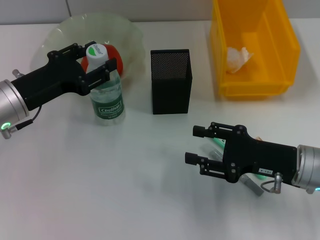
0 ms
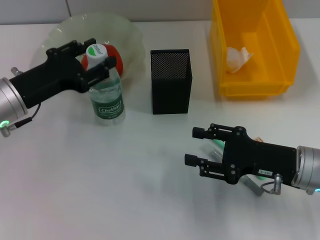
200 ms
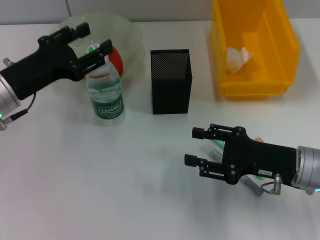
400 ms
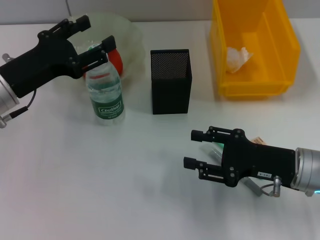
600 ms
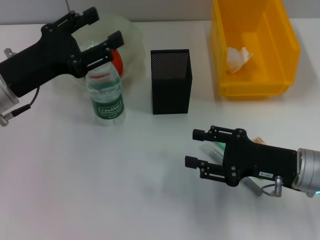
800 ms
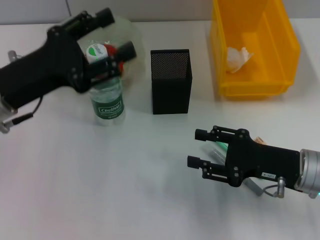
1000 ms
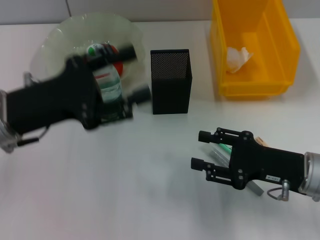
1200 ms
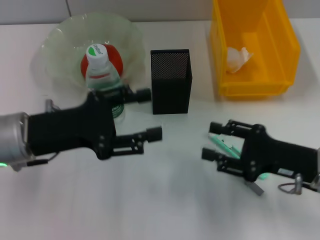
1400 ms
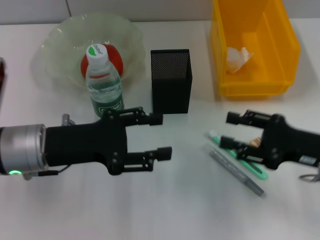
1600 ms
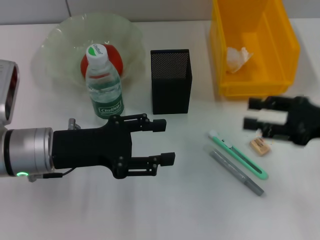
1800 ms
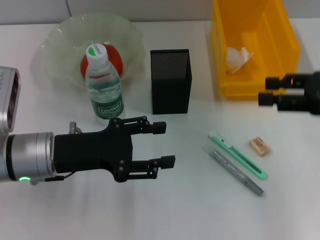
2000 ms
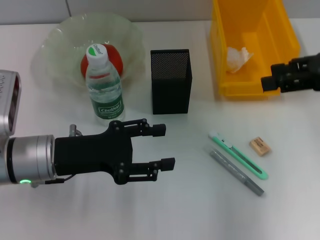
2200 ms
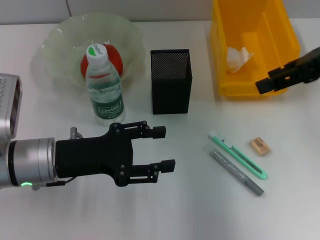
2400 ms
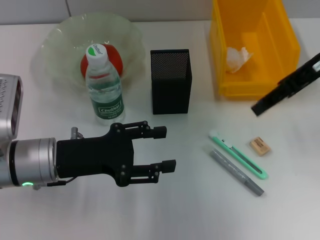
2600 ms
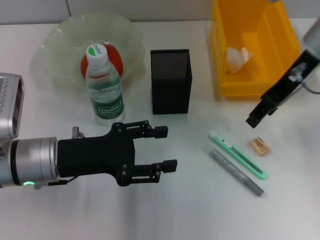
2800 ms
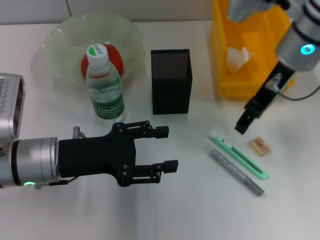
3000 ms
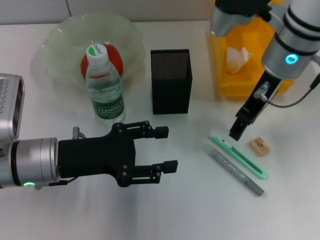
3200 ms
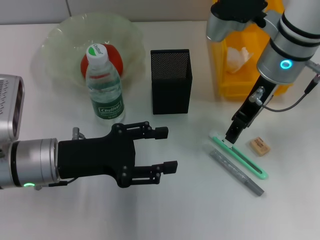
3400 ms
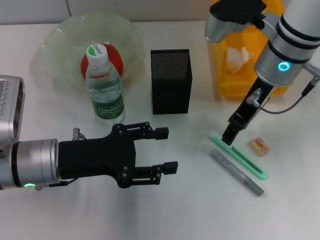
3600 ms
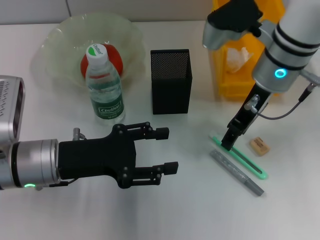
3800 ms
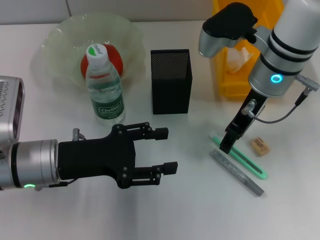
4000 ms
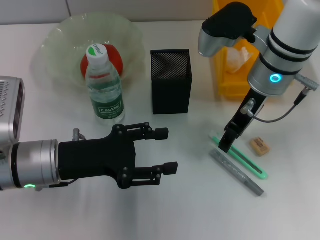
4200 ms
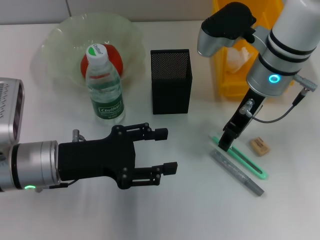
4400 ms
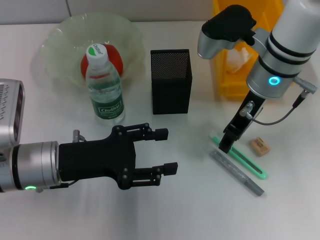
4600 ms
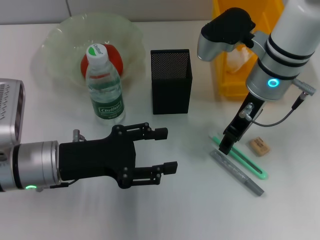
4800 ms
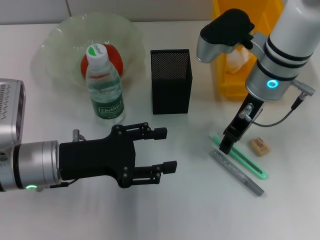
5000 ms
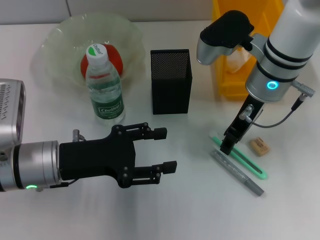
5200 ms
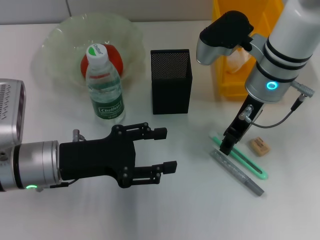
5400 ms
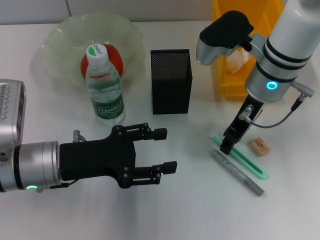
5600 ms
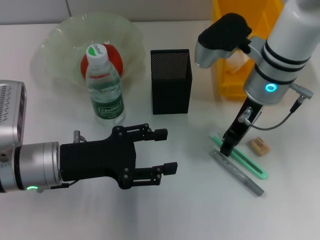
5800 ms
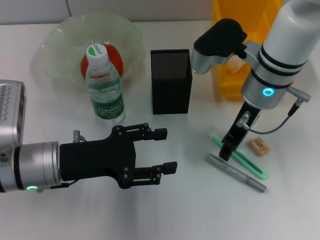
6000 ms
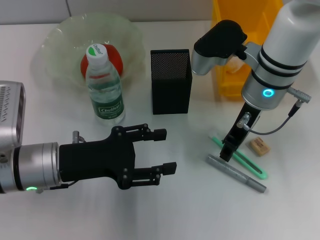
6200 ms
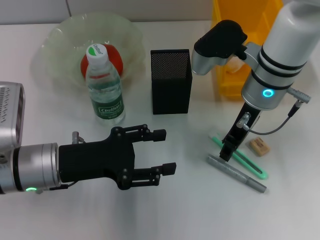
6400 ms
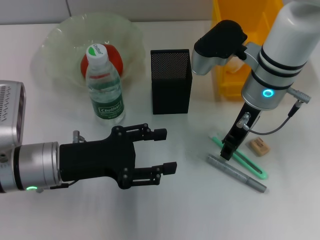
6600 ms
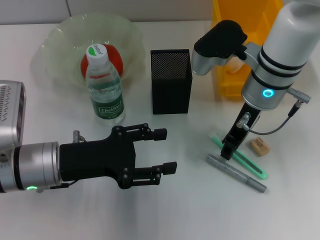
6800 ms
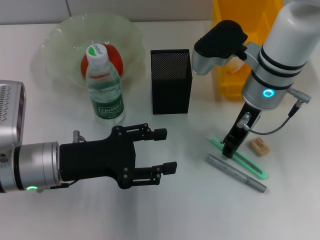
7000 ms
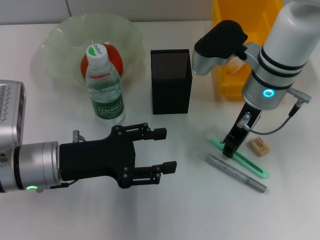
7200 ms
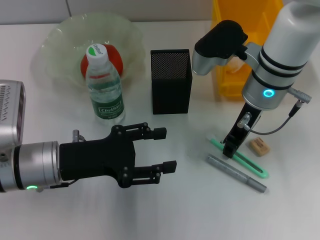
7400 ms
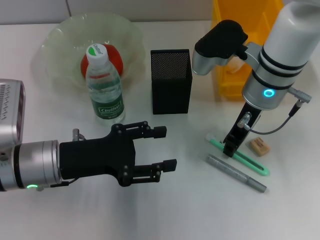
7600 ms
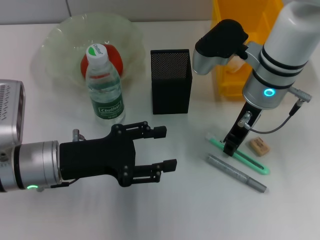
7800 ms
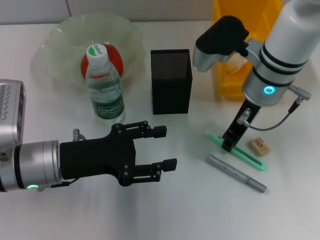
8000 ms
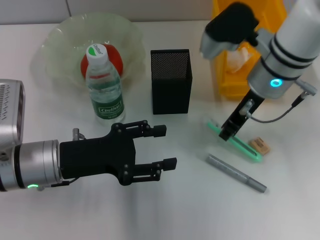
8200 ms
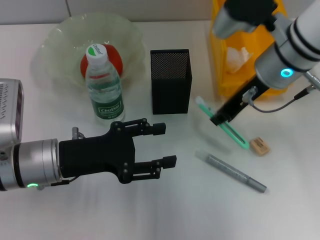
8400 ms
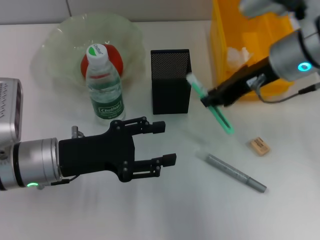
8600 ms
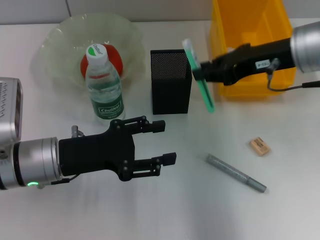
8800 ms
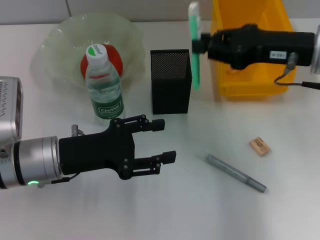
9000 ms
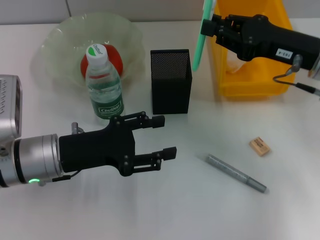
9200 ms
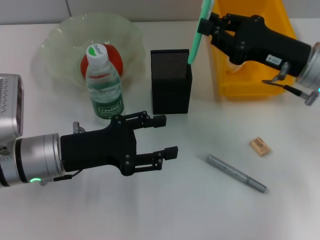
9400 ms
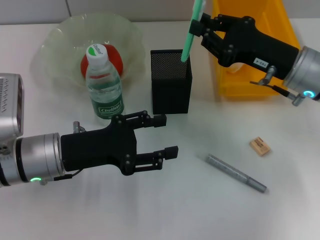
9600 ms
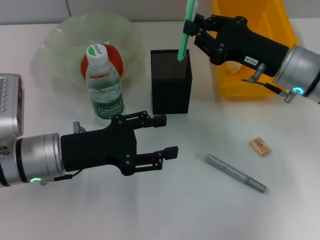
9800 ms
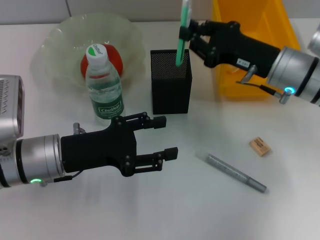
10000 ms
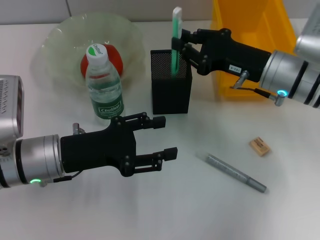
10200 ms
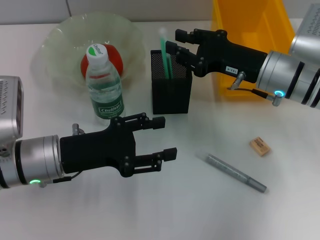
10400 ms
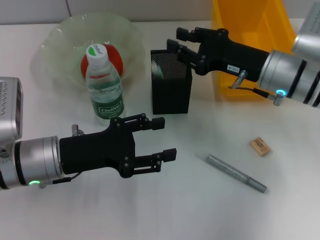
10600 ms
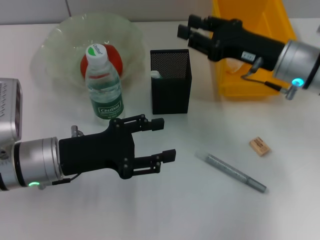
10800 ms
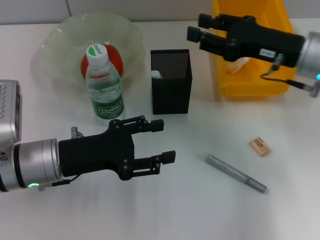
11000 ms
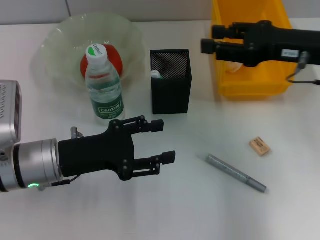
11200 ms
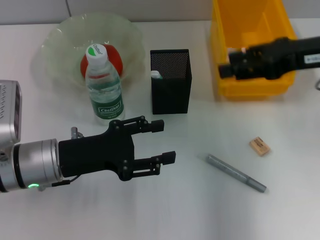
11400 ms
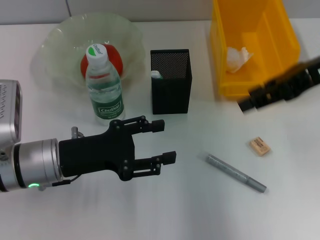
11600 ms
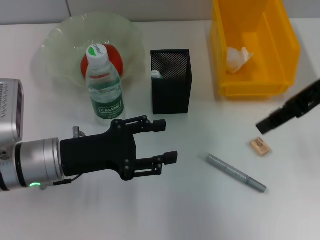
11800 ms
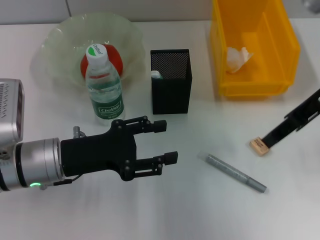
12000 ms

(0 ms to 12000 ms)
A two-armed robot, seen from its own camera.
Step, 1200 ms - 7200 ms: Grab the blue utility knife with the right hand.
Step, 7400 ms - 11200 ms: Place the blue utility knife into the pen holder with the right hand.
0 ms - 1600 ms: The right gripper ends up roughly 5 cm from where it was. The left gripper shifts by roughly 5 cm.
1600 ms - 3000 ms: The right gripper is displaced forward, upward and to the left by roughly 20 cm.
3000 ms - 4400 ms: The right gripper shifts by approximately 5 cm.
4400 ms - 6000 ms: The grippers make only small movements.
6000 ms - 7600 ms: The two grippers keep their place.
7600 ms - 9000 ms: The right gripper moves to the right, some 10 cm.
9000 ms - 10400 ms: The right gripper is displaced downward by approximately 10 cm.
10400 ms - 12000 ms: The right gripper is displaced upward by some 10 cm, and opens.

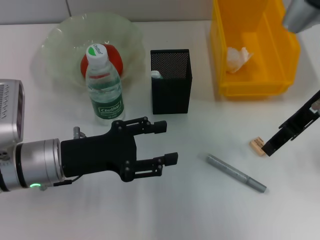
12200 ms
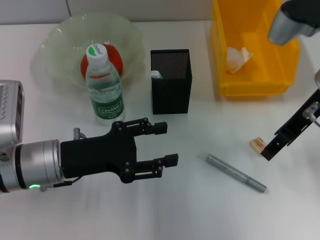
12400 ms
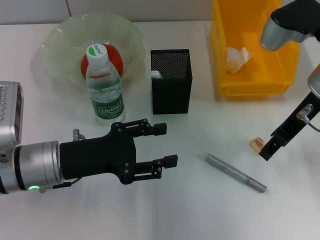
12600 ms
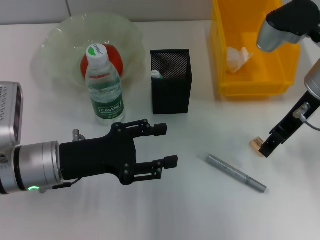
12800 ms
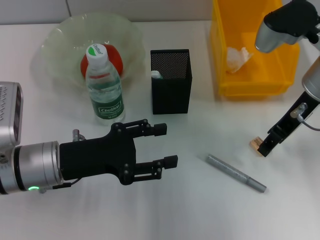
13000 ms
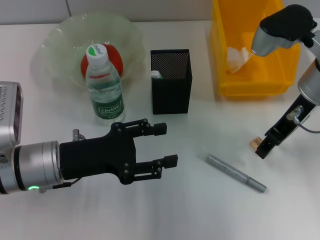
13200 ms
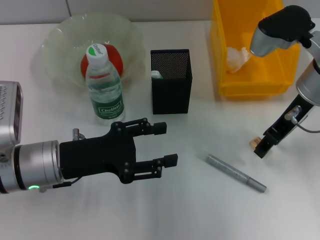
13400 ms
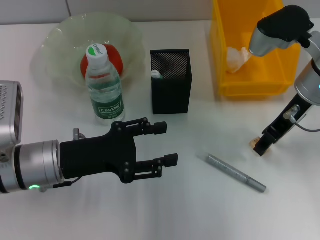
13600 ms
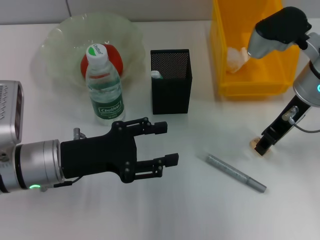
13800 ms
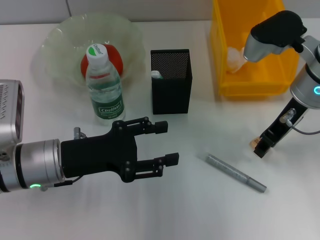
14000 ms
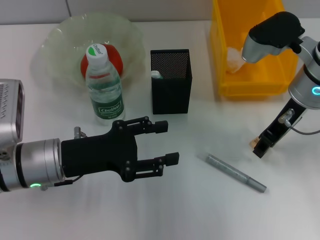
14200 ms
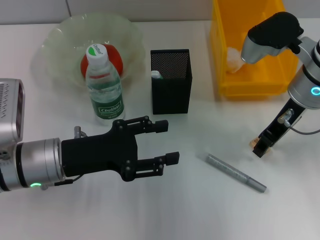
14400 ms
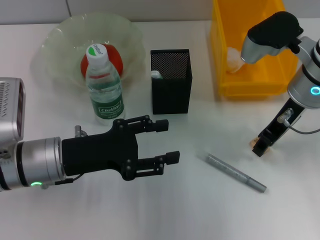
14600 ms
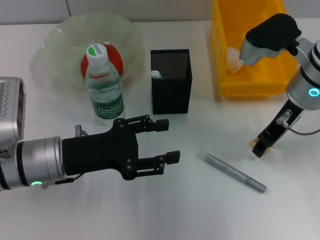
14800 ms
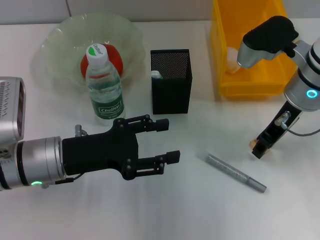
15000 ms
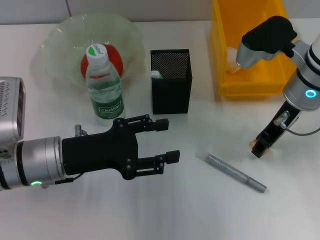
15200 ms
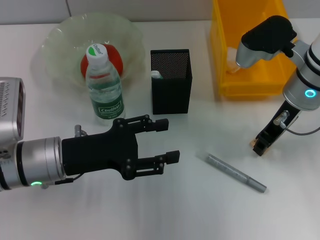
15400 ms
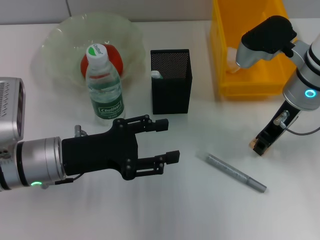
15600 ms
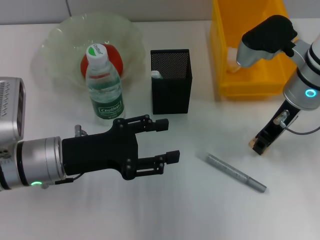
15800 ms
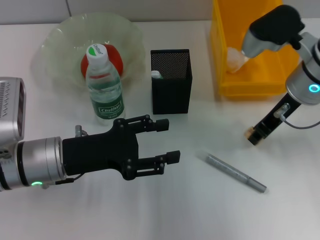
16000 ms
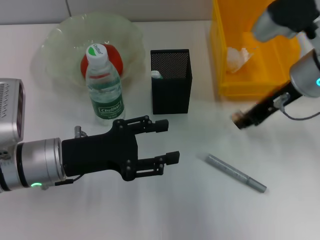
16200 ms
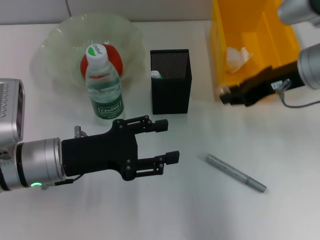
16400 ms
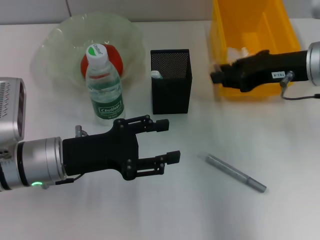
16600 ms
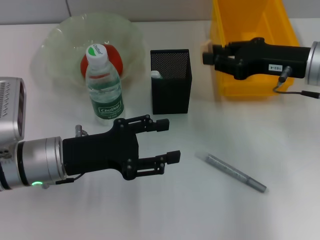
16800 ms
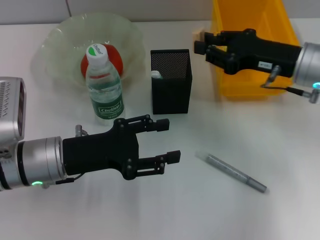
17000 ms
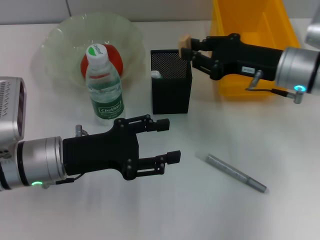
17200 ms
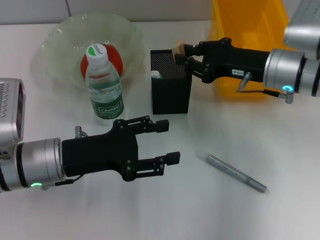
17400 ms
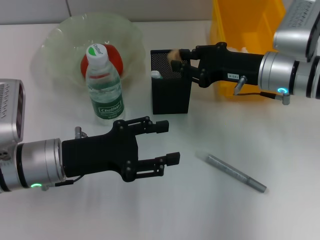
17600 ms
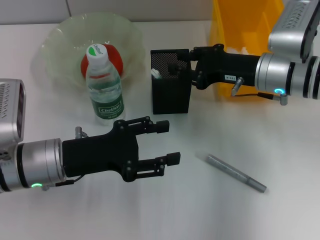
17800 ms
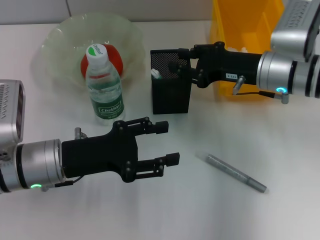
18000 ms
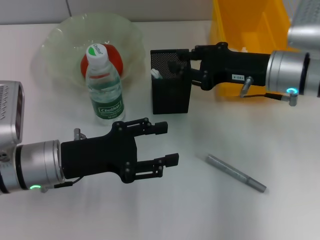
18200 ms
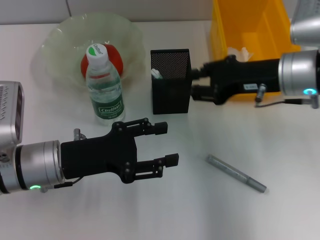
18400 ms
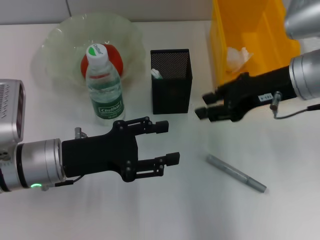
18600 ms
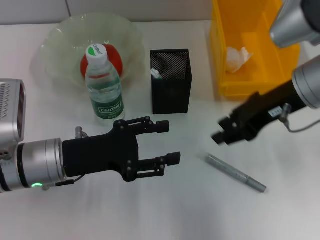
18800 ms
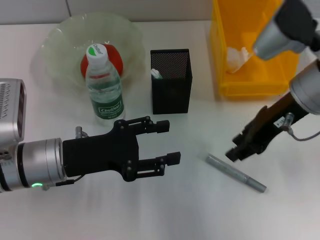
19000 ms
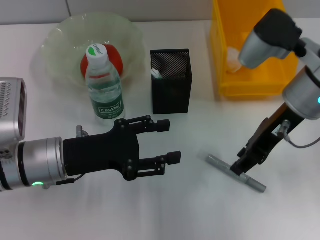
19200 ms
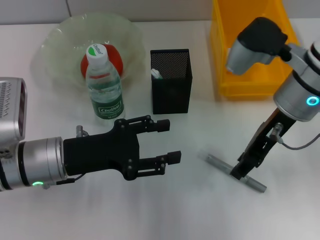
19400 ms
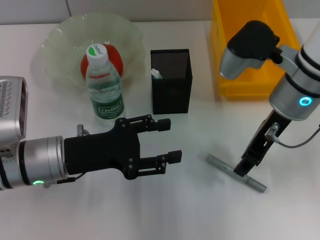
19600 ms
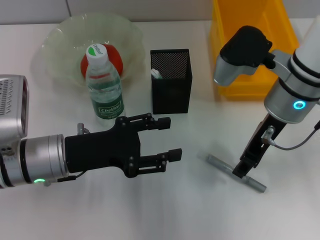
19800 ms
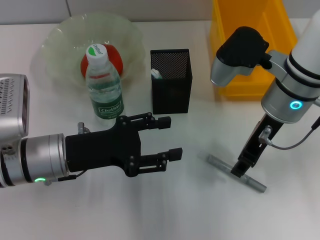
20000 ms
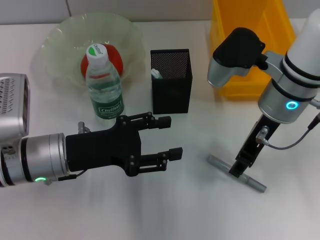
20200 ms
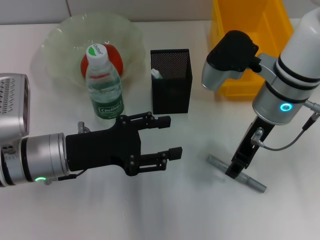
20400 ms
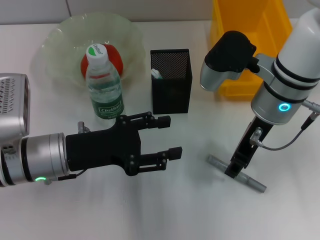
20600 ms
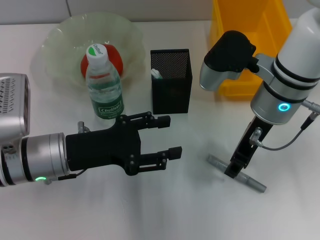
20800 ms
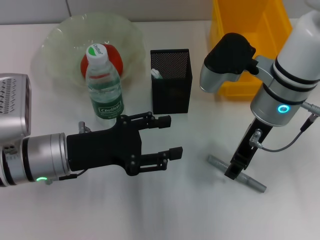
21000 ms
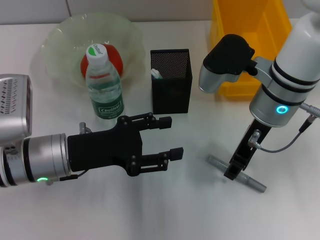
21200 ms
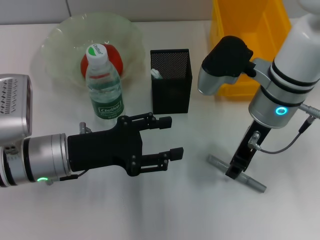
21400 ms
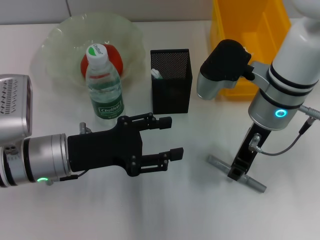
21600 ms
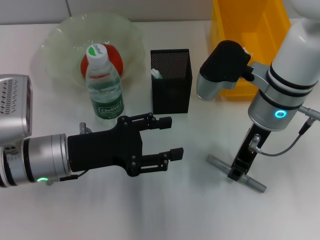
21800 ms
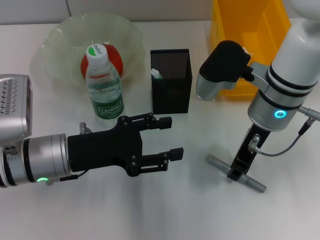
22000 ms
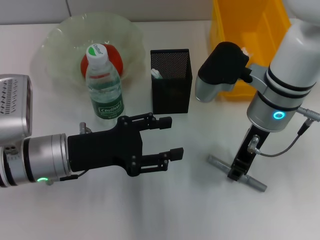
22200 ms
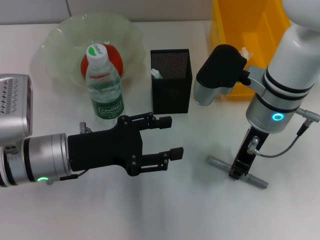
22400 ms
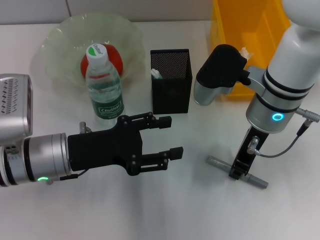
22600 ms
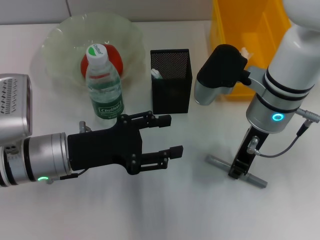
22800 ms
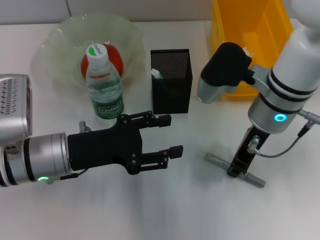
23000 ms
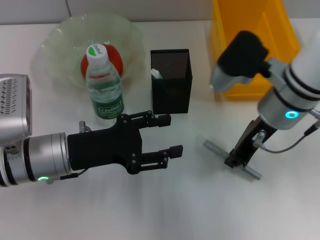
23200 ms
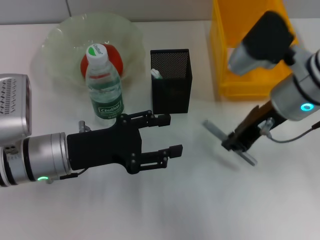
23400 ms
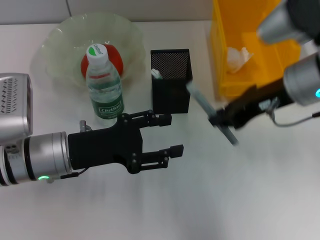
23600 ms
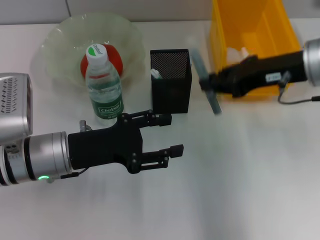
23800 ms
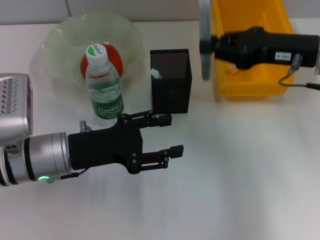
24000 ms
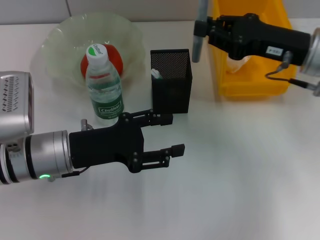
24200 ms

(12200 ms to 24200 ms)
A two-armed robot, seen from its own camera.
Step, 12200 ms - 15600 ms: Grab the eraser with the right hand.
Step, 16000 ms - 18200 ms: Put the eraser into the pen holder with the right hand.
Step, 18400 ms - 22600 ms: Grab the gray glue with the right hand.
12200 ms - 13800 ms: The right gripper changes place by about 5 cm.
13800 ms - 15200 ms: The grippers move only a little.
15200 ms - 16600 ms: The right gripper moves about 5 cm.
16600 ms - 18200 ms: The right gripper moves roughly 5 cm.
18200 ms - 19800 ms: The right gripper moves approximately 5 cm.
19800 ms - 21200 ms: The grippers move only a little.
21200 ms - 22600 ms: Both grippers stay put.
22600 ms - 24200 ms: The right gripper shifts some 10 cm to the right.
